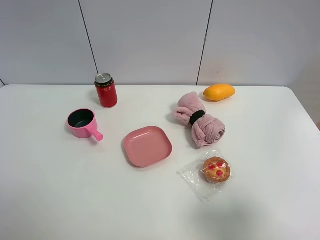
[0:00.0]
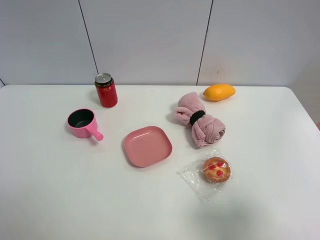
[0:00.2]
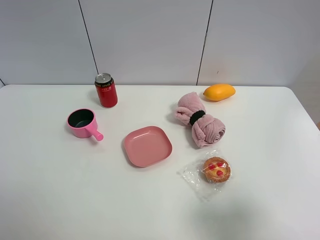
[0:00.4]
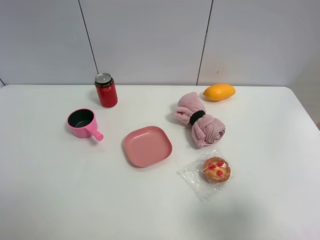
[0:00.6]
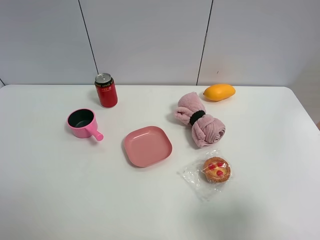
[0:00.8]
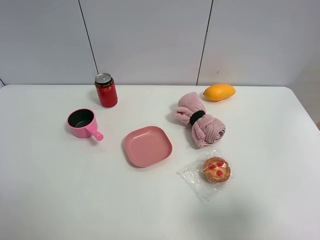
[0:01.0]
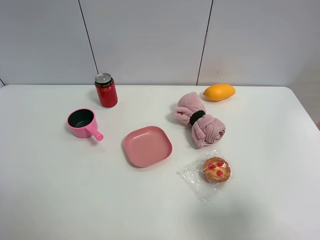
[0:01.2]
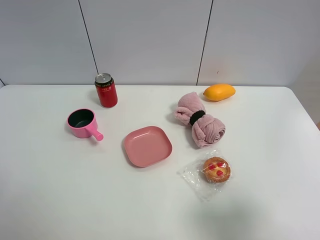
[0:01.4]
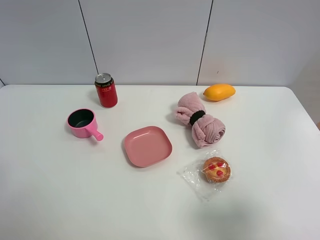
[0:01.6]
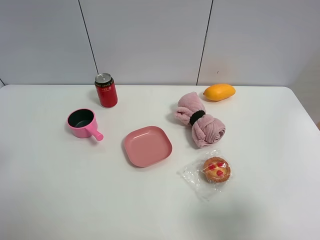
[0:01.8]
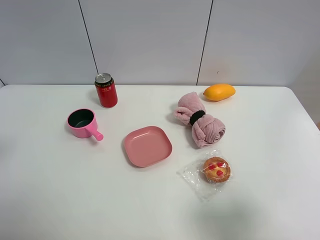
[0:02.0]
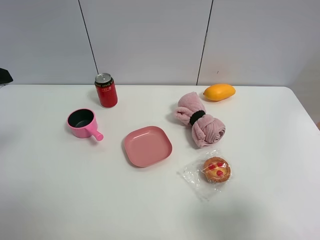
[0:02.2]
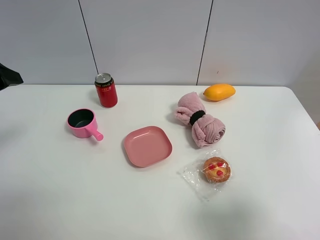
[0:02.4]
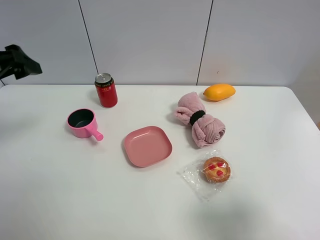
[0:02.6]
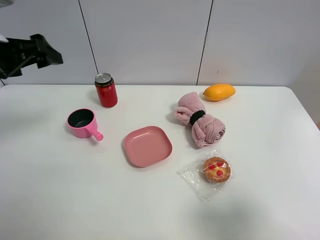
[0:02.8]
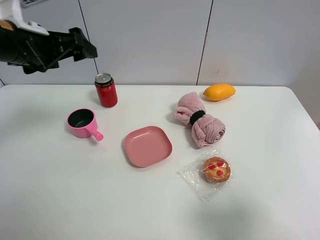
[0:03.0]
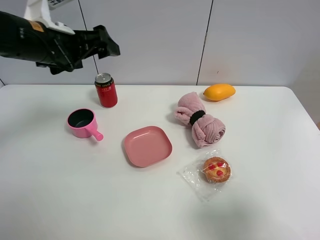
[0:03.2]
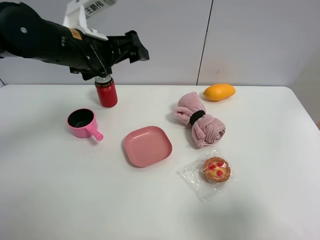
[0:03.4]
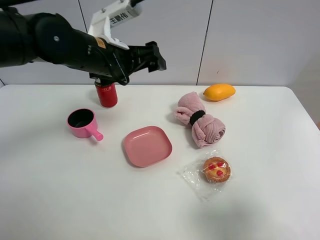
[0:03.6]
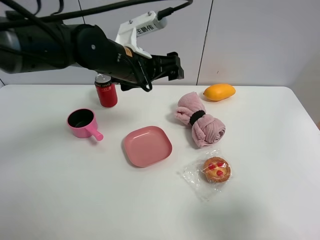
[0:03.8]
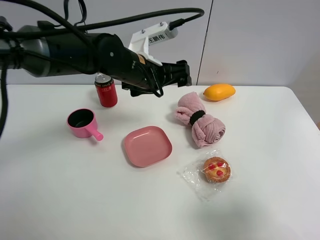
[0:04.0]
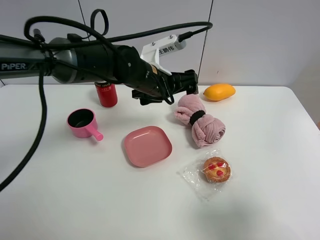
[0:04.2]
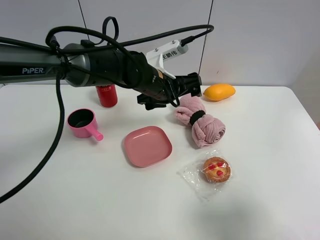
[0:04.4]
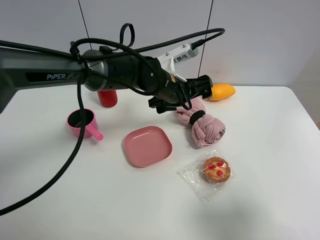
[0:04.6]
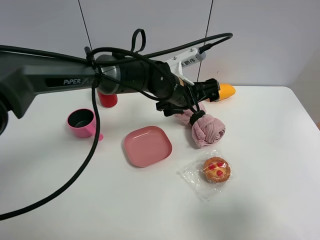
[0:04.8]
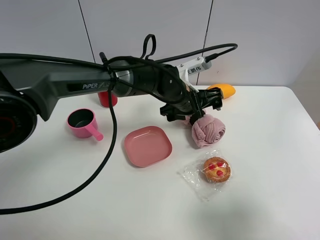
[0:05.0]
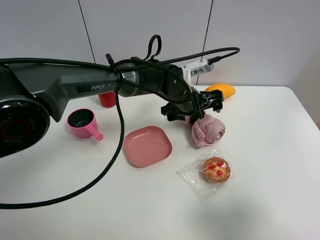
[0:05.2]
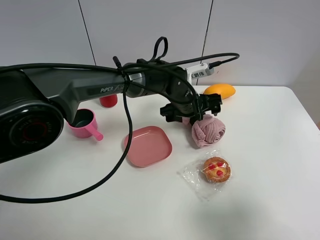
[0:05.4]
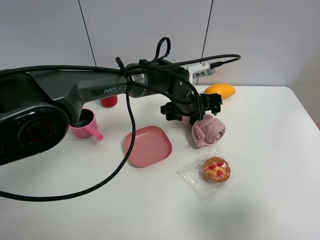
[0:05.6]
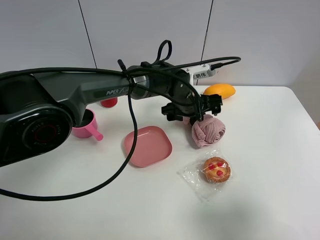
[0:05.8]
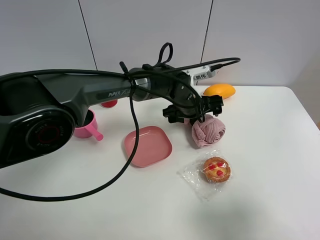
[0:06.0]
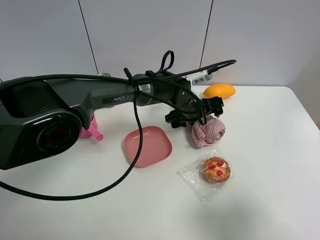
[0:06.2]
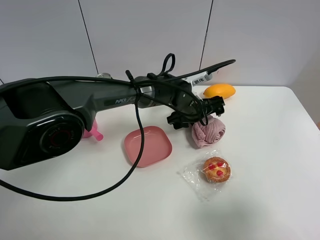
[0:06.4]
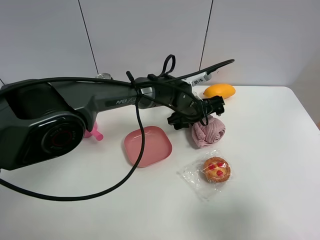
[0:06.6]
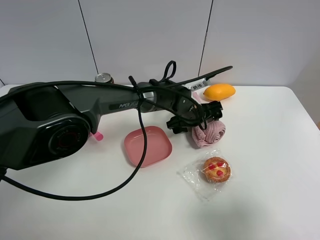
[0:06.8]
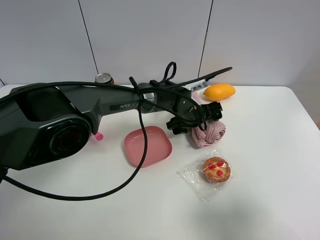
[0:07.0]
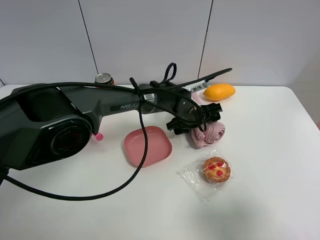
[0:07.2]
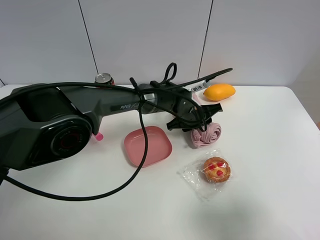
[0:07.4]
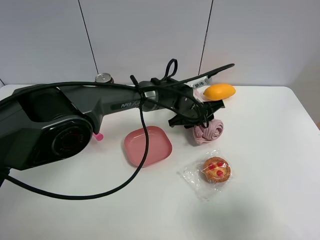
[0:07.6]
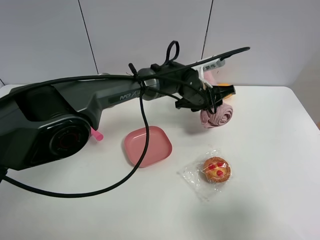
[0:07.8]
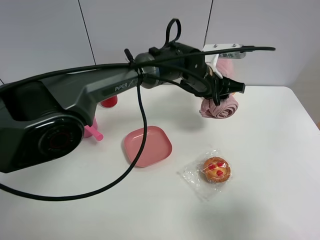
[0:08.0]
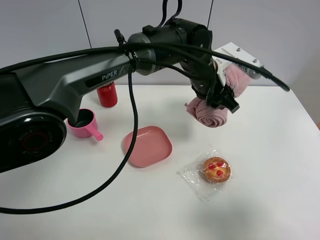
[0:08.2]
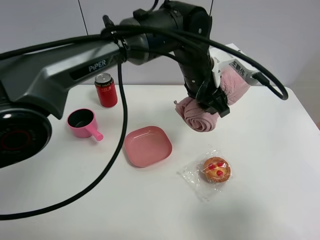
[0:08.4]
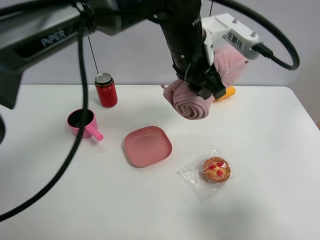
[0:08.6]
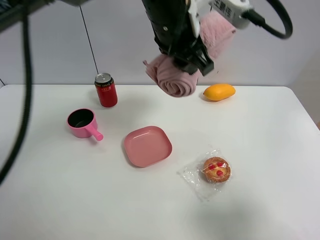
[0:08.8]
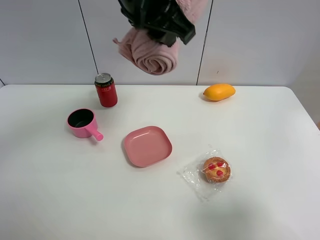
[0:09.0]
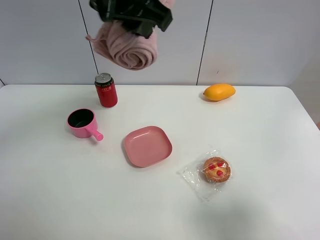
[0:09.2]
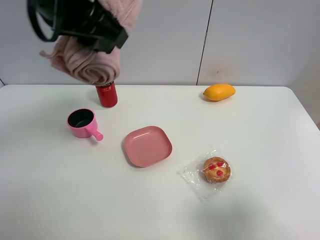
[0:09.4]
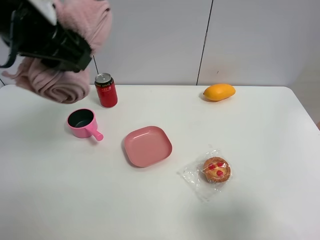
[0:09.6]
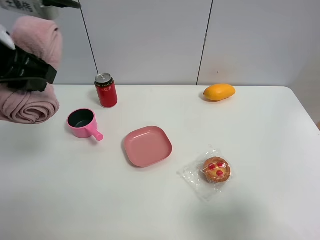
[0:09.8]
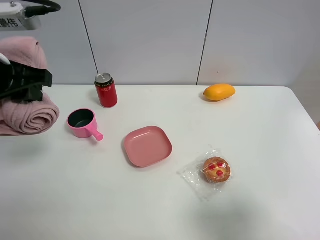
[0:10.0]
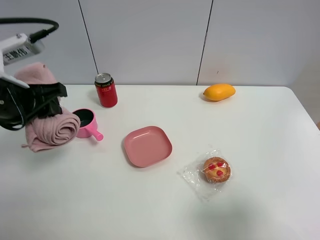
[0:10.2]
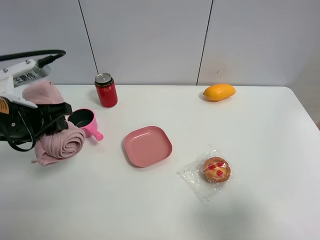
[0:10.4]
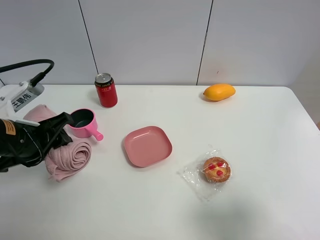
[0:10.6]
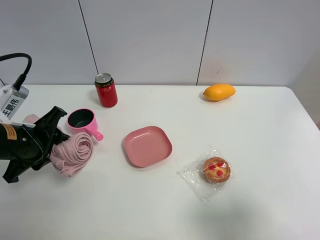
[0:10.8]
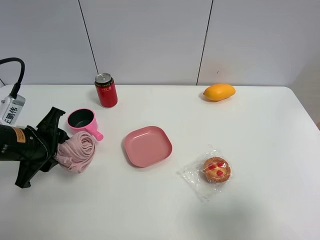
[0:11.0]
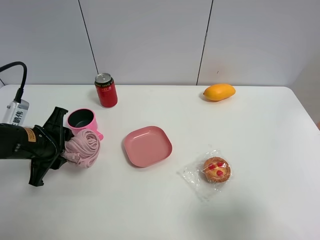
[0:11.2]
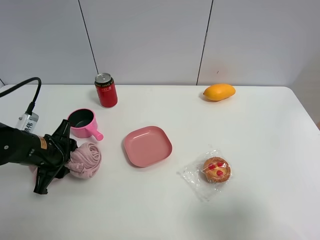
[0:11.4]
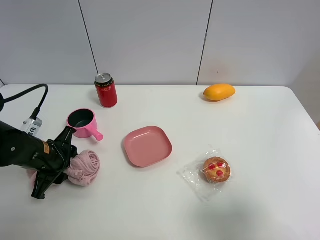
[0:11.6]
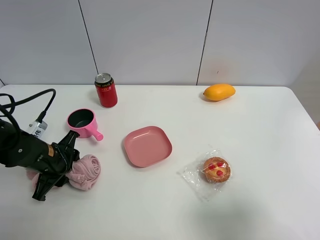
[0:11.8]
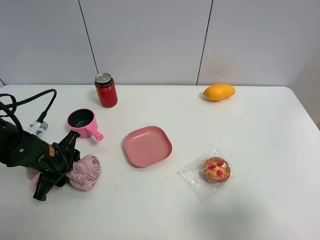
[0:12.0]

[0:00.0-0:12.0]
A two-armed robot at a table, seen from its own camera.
Task of the whole recording: the gripper move the object.
Step, 0:00.0 to 0:07.2: Grasp the pink towel with the left gripper.
0:01.6 to 0:03.0: The left gripper shifts some 25 cm forward.
0:03.0 to 0:04.4: The left gripper shifts approximately 25 cm to the right and downward.
0:04.4 to 0:06.0: The left gripper travels to the right and downward by about 10 cm.
0:06.0 to 0:07.6: The left gripper closes up.
0:07.6 to 0:09.0: The left gripper moves upward, approximately 30 cm.
0:09.0 to 0:10.4: The left gripper goes approximately 25 cm to the left and downward.
0:10.4 to 0:12.0: The left gripper goes approximately 15 cm downward.

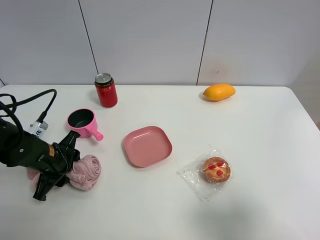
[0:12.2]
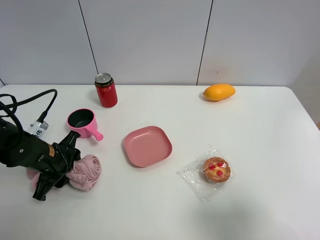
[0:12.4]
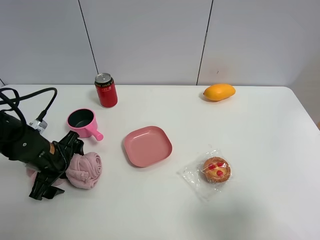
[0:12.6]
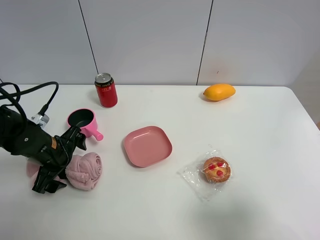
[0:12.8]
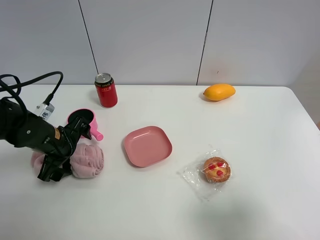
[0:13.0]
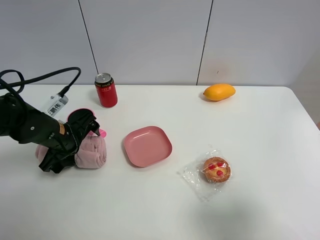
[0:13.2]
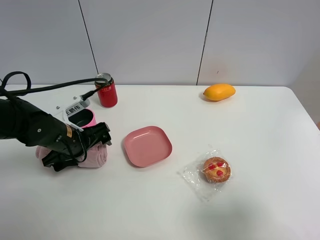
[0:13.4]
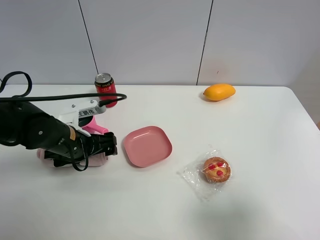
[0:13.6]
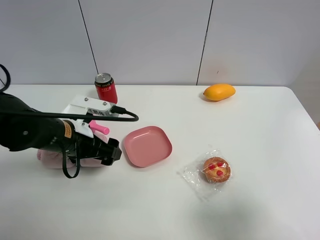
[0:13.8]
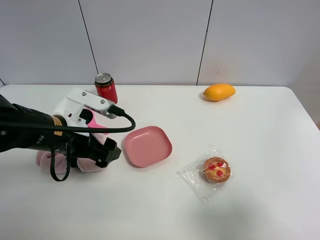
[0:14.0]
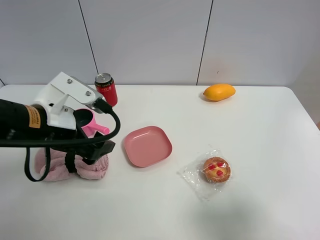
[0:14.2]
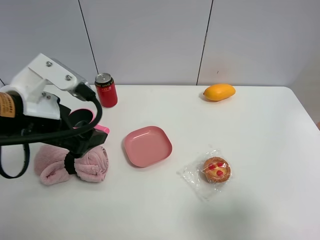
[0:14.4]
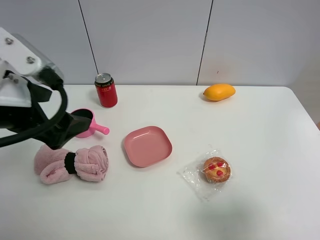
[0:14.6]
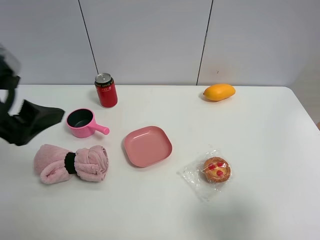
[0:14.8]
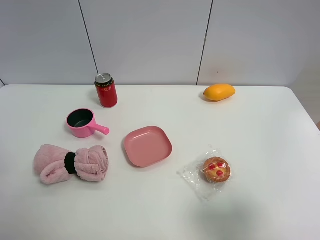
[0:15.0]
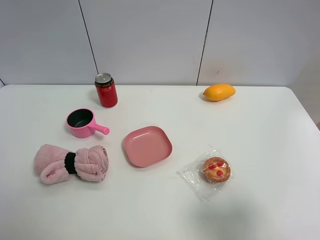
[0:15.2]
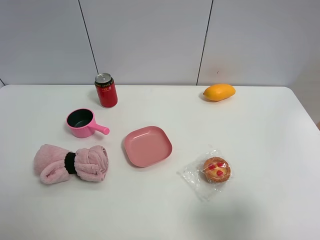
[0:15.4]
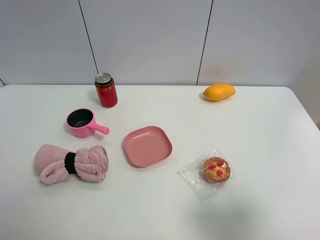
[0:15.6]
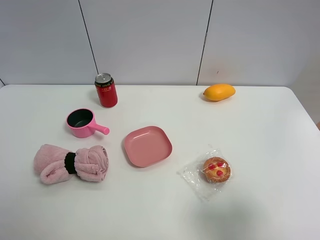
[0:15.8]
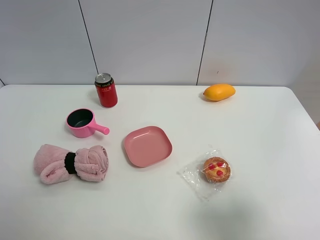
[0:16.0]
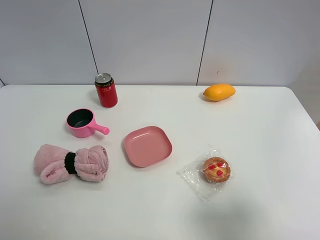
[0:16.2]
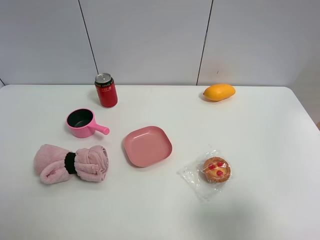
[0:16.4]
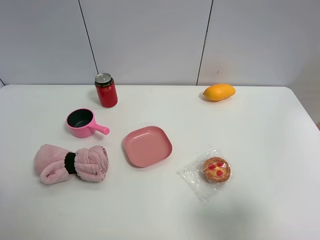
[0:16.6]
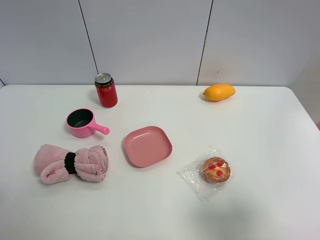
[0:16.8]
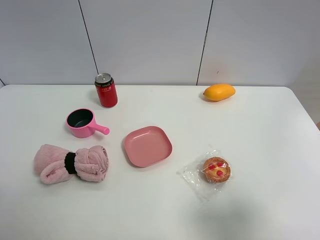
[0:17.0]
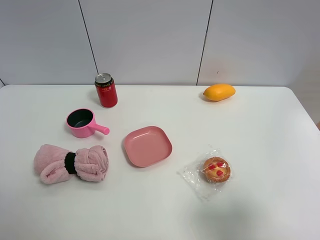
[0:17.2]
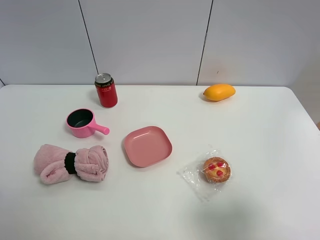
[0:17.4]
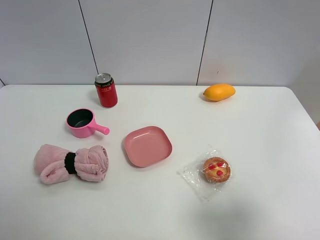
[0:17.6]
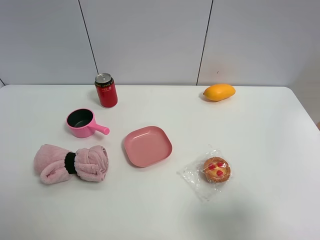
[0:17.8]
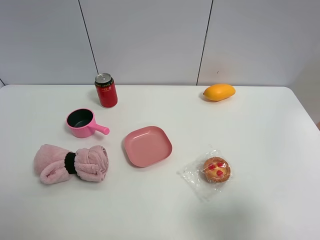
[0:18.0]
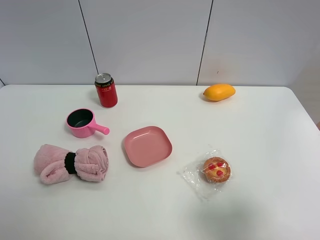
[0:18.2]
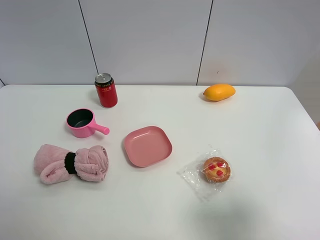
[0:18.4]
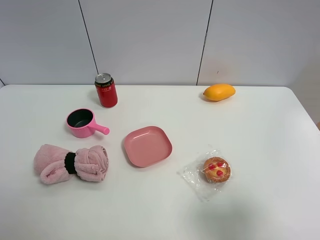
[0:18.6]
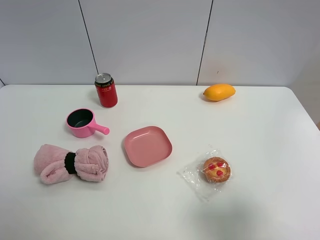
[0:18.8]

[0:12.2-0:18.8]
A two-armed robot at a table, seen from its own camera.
Task of the whole recording: the gripper move the object.
0:12.2 to 0:13.8: The left gripper shifts about 10 cm upward and to the right, and opens.
0:13.8 to 0:15.4: The left gripper heads upward, backward and to the left, covering roughly 30 cm.

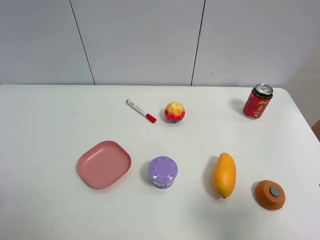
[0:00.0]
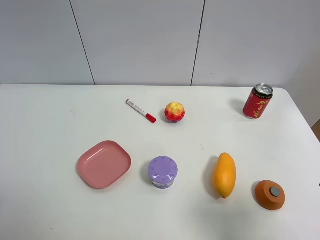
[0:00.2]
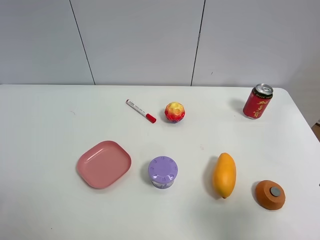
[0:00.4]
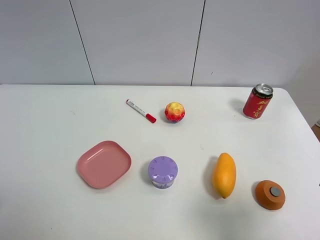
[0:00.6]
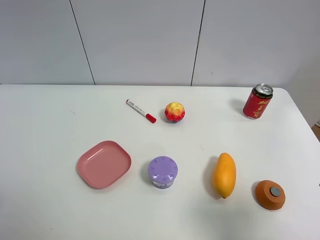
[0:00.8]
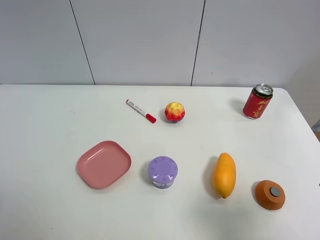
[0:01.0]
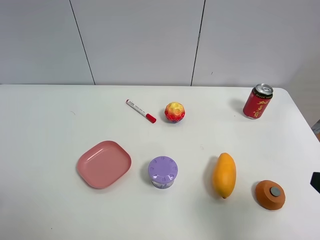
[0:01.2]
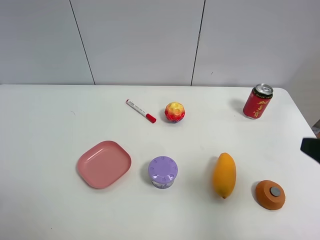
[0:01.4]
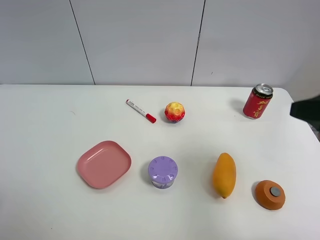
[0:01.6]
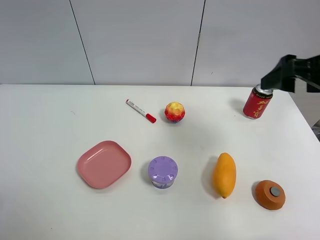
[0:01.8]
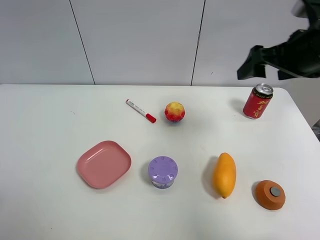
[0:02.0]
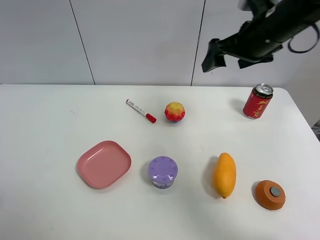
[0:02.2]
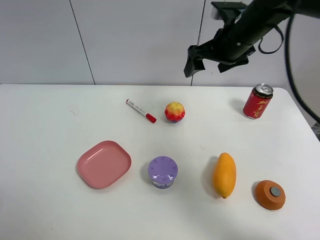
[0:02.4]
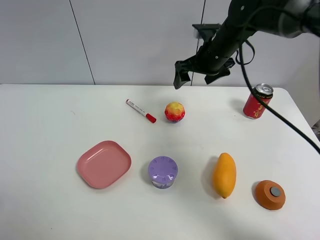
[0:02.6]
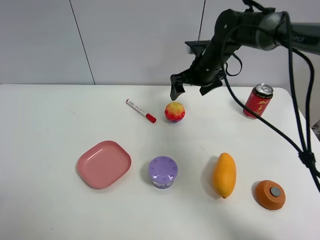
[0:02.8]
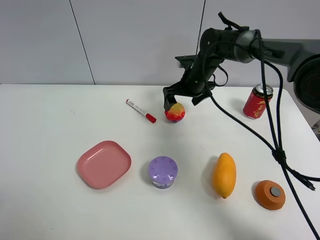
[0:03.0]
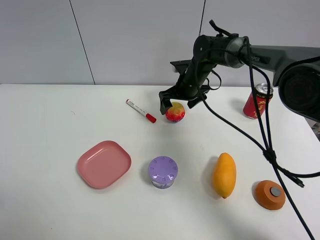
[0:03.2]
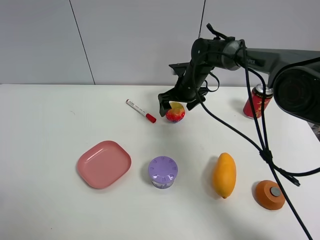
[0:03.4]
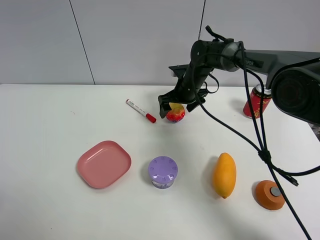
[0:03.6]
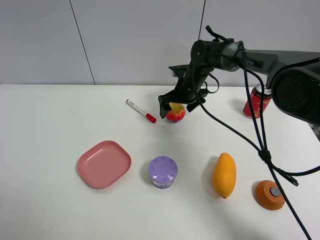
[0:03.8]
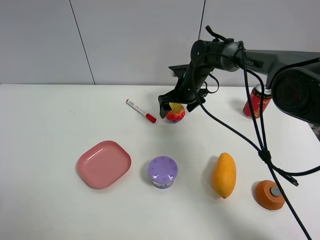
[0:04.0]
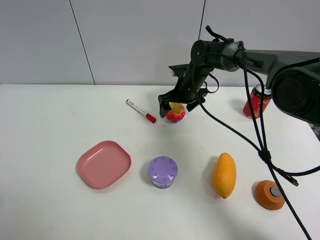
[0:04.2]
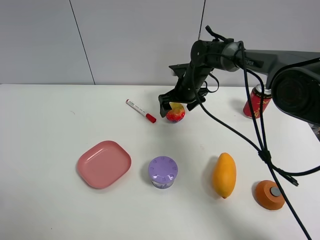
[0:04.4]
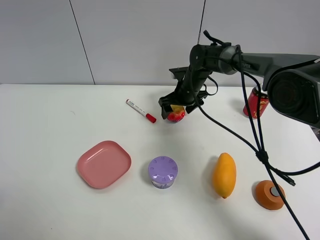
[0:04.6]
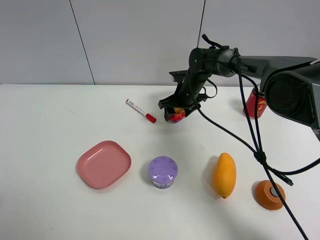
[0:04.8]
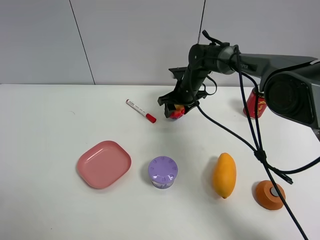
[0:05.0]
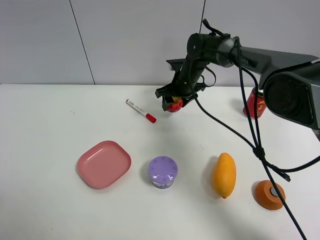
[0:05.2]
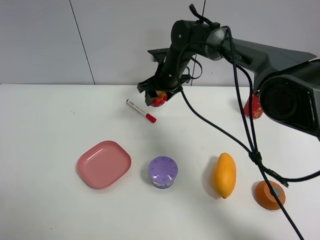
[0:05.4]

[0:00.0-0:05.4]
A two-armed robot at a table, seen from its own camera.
Task of the whole recording: the gripper move the object.
Step, 0:00.0 to 0:04.8: Grasp the colorful ball with the right gripper.
0:00.0 to 0:01.4: The right gripper travels forward by roughly 10 cm.
0:01.4 to 0:02.8: The right gripper is displaced forward and to the left by some 40 cm.
0:02.8 to 0:04.0: The right gripper heads downward, covering about 5 cm.
0:04.0 to 0:05.4: The right gripper is displaced to the left and upward by some 10 cm, and closes.
